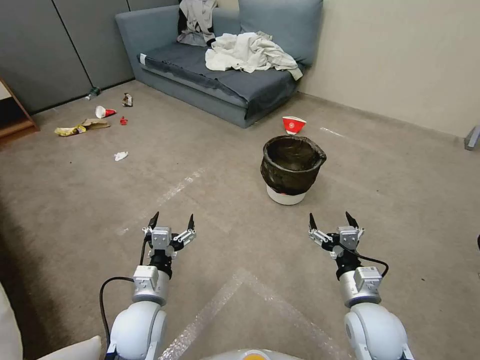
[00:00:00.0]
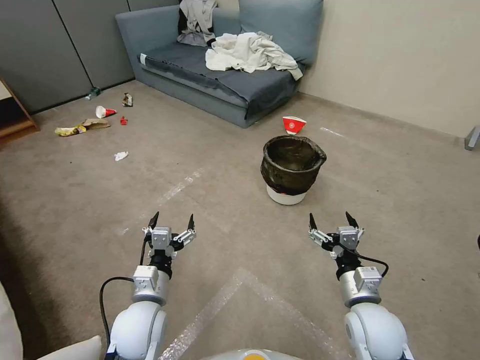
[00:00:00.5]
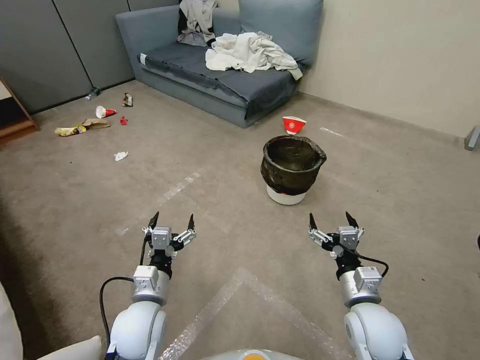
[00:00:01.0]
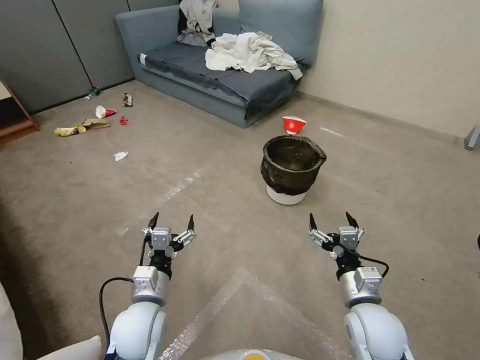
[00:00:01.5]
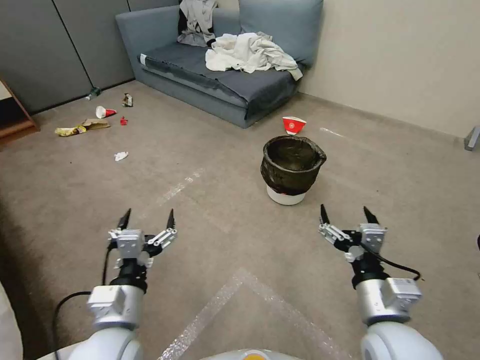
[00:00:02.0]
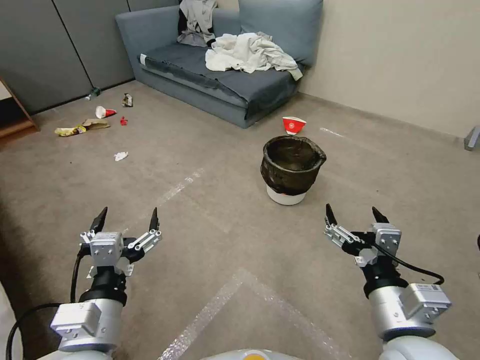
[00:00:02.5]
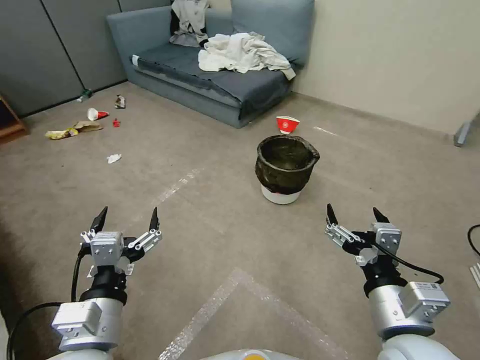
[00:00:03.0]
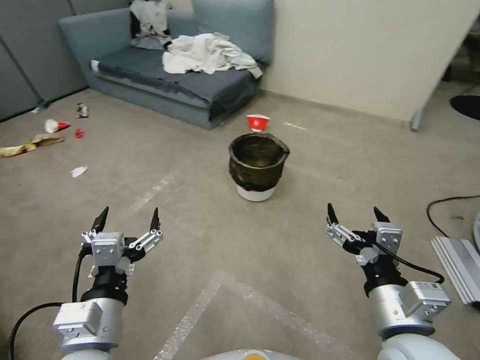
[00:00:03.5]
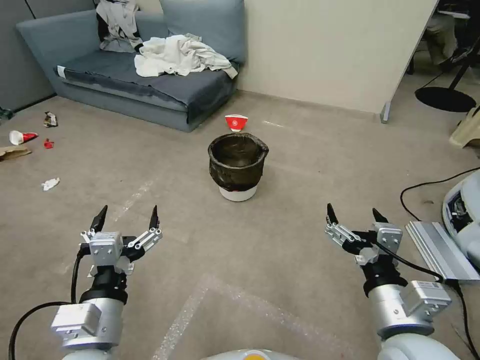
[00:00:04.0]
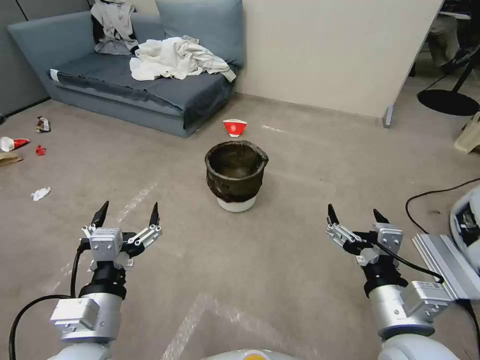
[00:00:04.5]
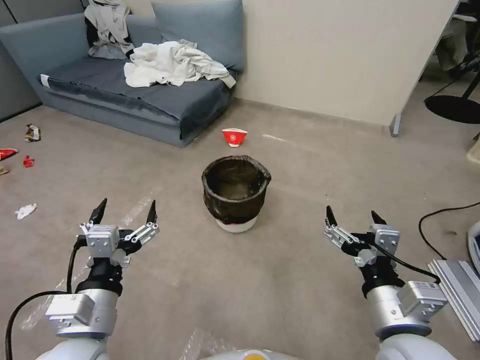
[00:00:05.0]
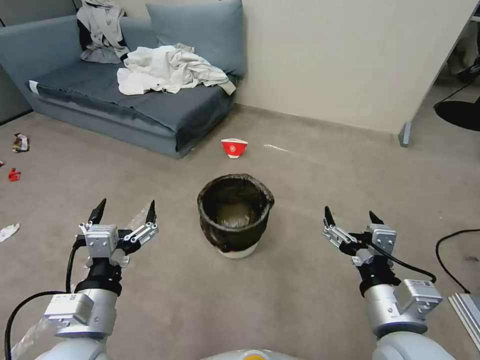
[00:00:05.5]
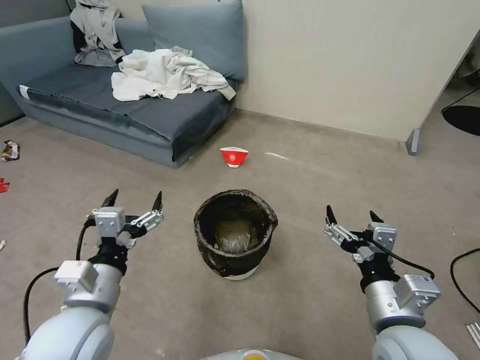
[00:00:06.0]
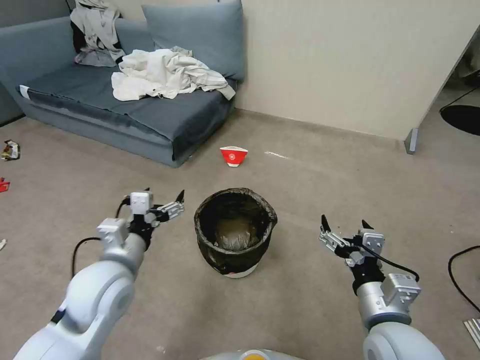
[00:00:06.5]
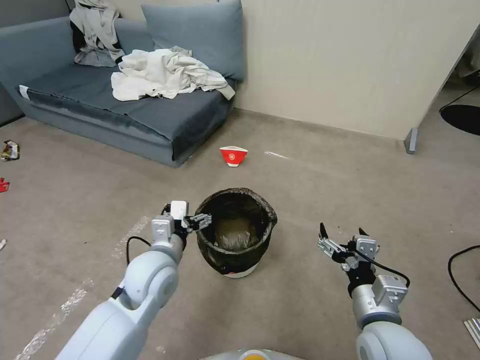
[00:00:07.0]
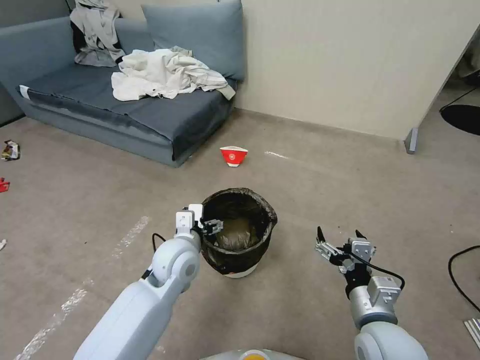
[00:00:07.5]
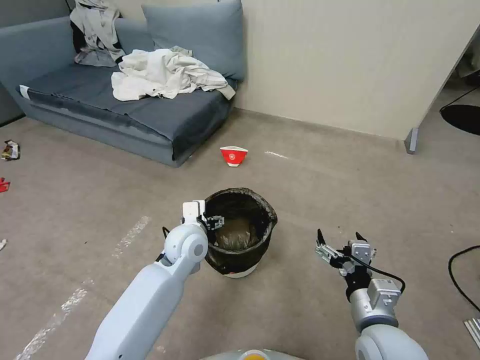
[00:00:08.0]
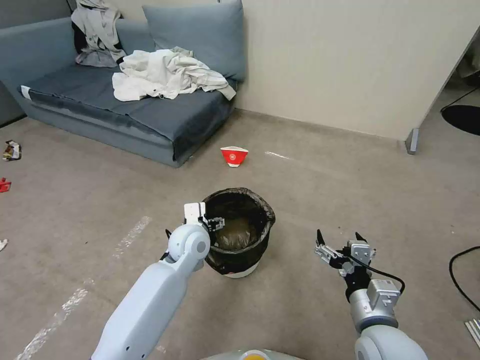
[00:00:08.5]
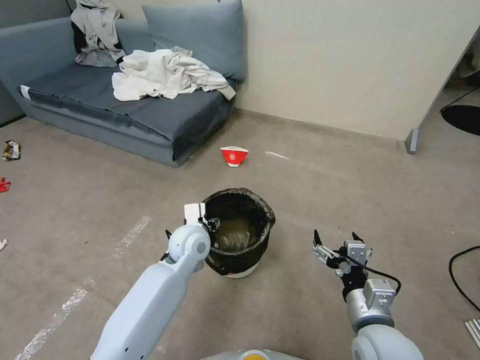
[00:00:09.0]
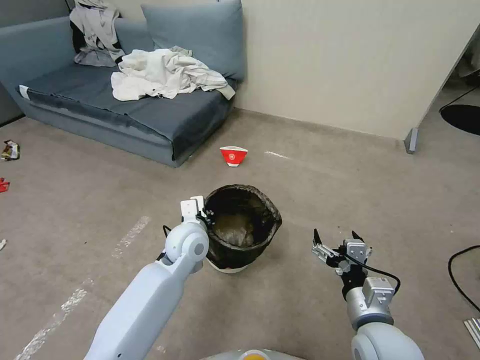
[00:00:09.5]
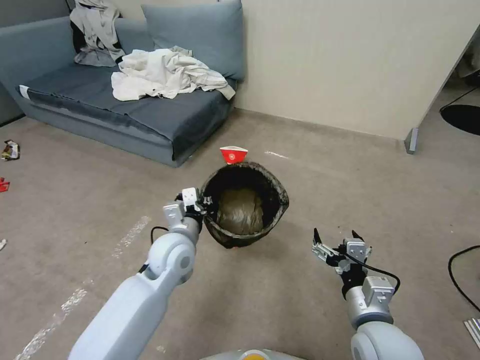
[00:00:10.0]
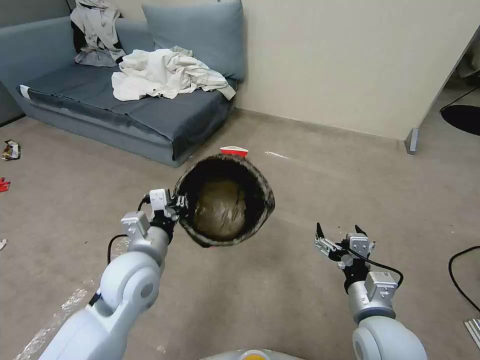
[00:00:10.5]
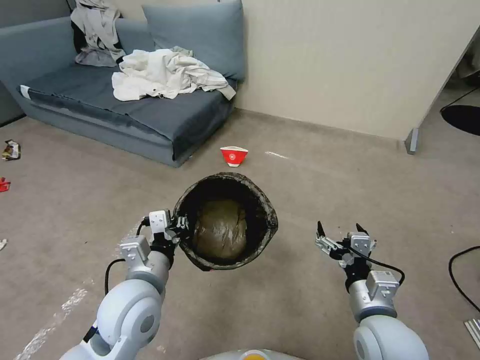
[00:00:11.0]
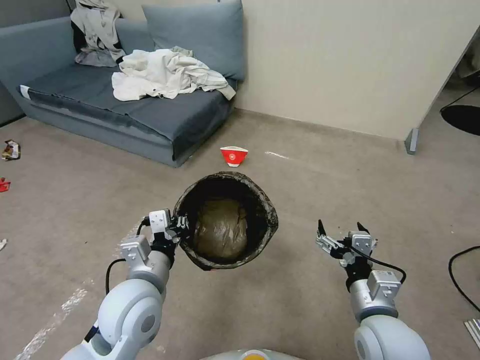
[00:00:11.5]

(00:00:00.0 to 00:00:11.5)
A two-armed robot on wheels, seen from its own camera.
Task of the whole recording: Pick up the trash can from the floor.
00:00:02.0 - 00:00:04.0: The right gripper moves some 5 cm, while the left gripper ends up roughly 5 cm from where it was.
00:00:04.0 - 00:00:06.0: The left gripper is displaced forward by some 5 cm.
00:00:06.0 - 00:00:07.5: The left gripper heads forward, to the right and downward, covering about 20 cm; the right gripper shifts about 5 cm downward.
00:00:07.5 - 00:00:09.5: The left gripper closes.
00:00:09.5 - 00:00:11.5: The left gripper moves backward and to the left, roughly 15 cm.
